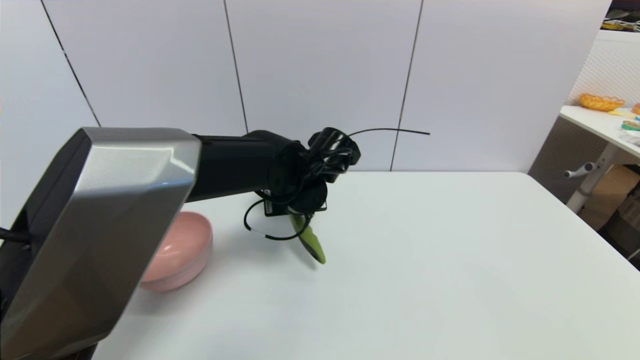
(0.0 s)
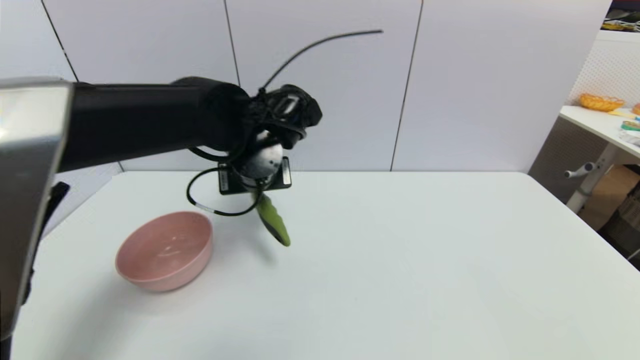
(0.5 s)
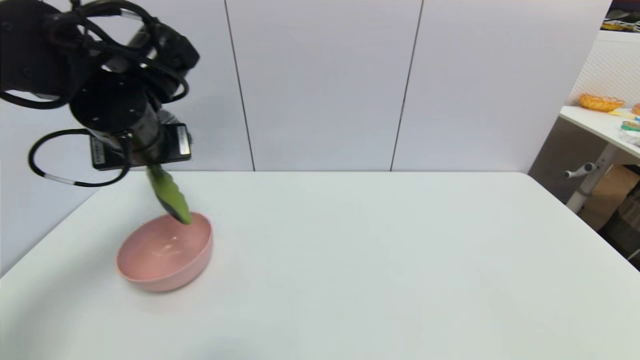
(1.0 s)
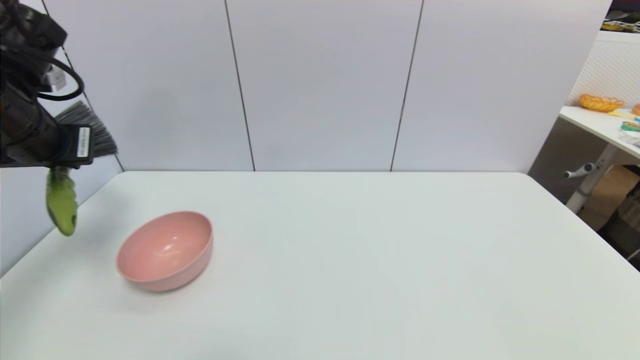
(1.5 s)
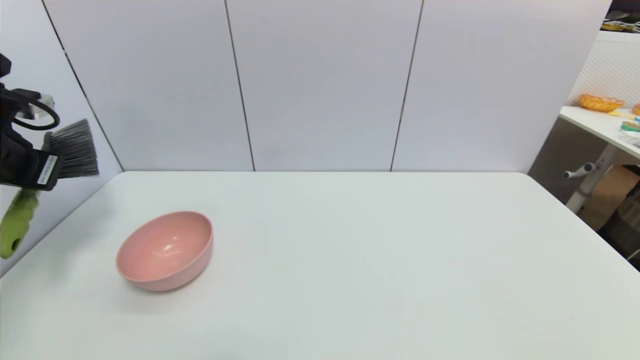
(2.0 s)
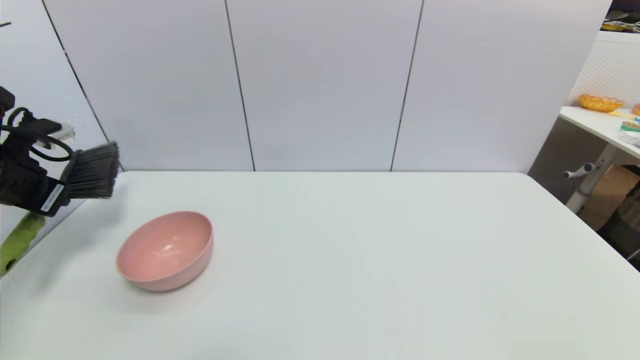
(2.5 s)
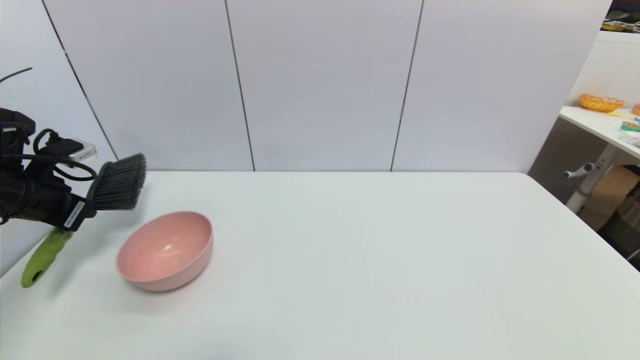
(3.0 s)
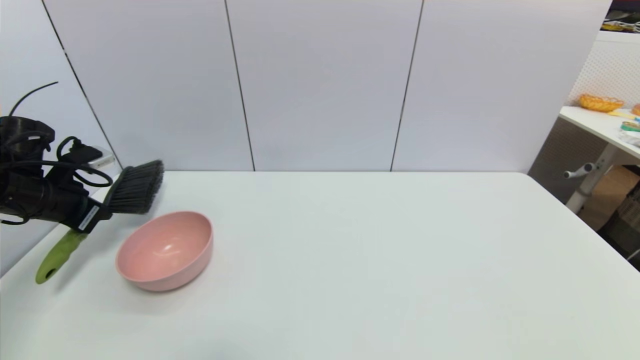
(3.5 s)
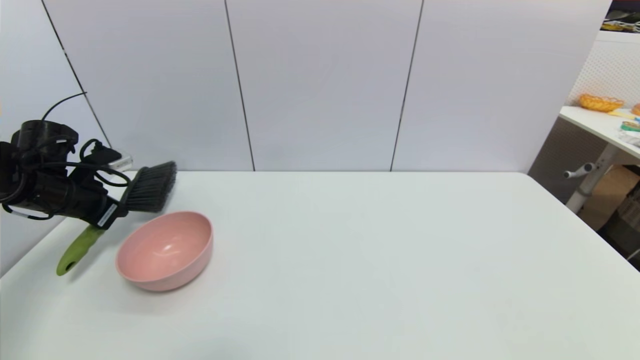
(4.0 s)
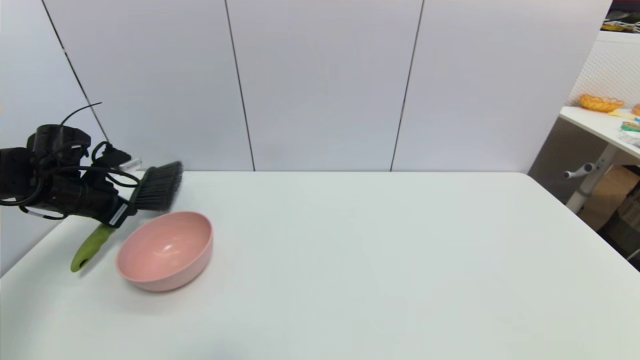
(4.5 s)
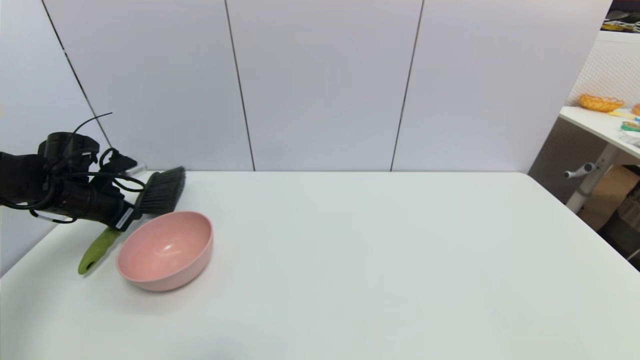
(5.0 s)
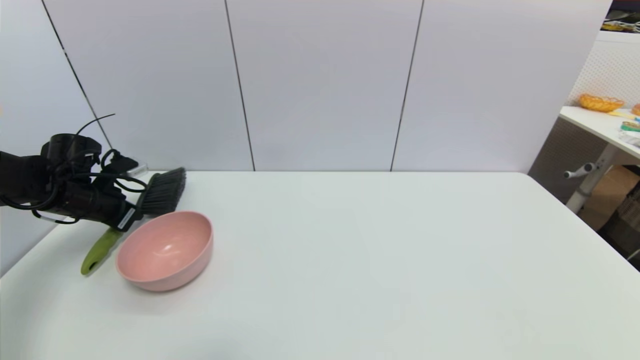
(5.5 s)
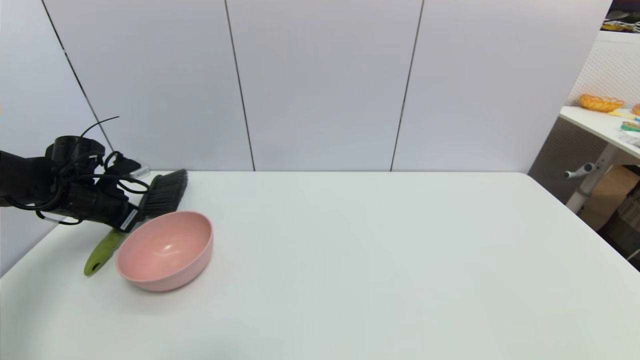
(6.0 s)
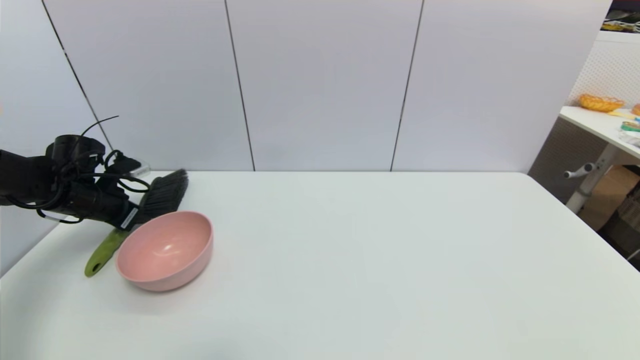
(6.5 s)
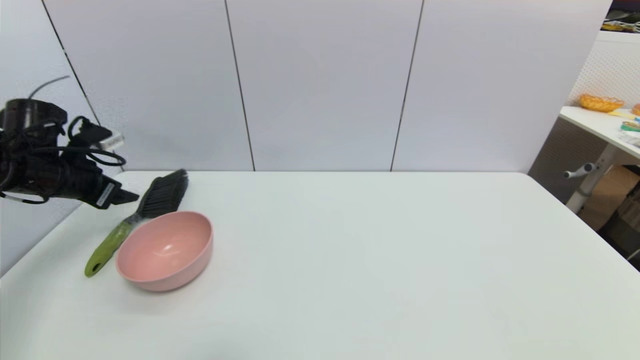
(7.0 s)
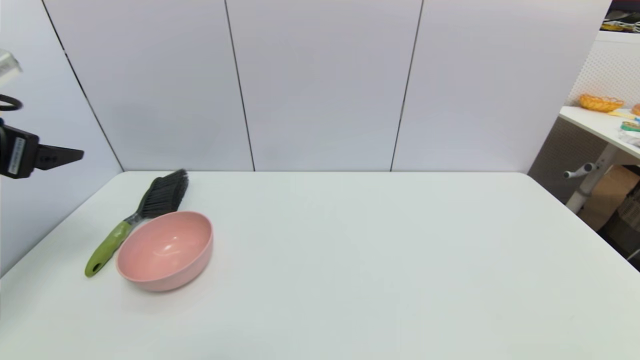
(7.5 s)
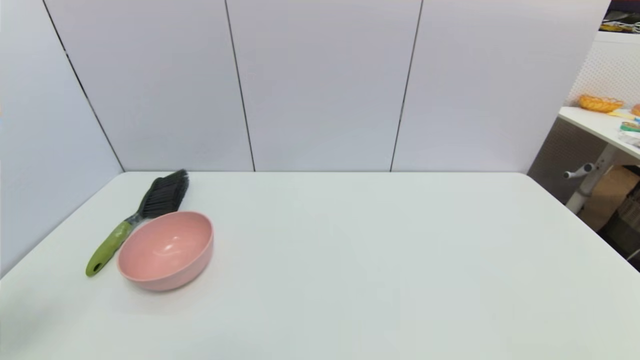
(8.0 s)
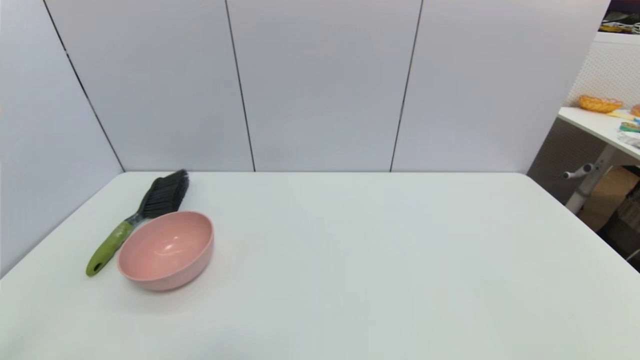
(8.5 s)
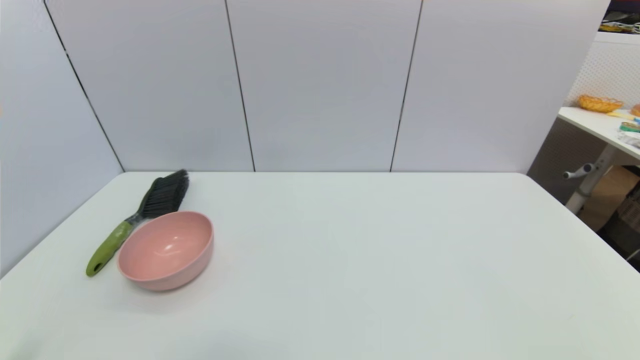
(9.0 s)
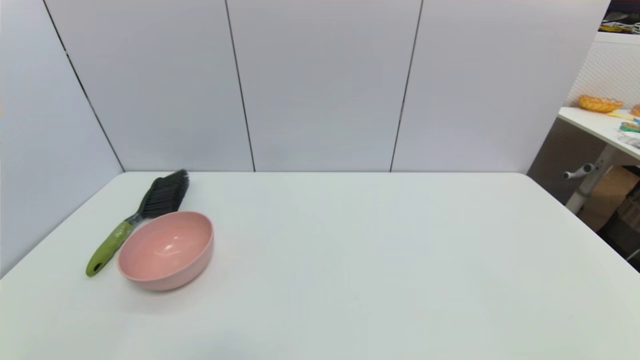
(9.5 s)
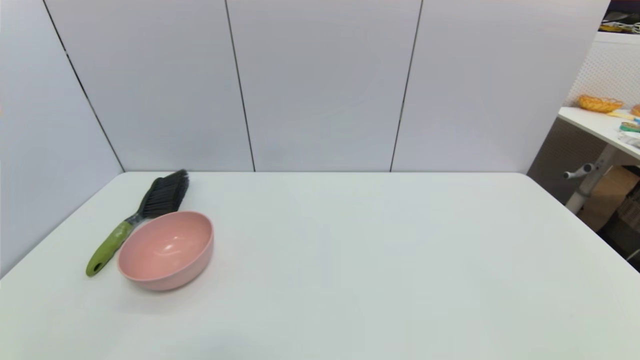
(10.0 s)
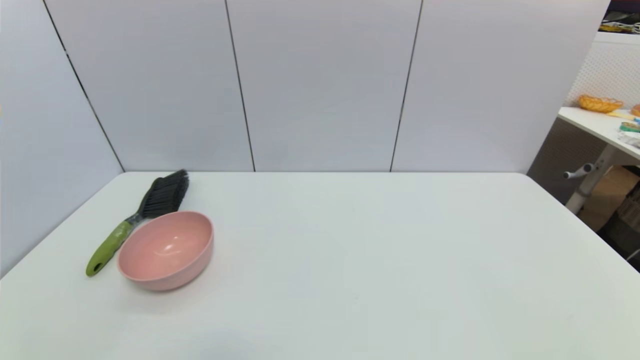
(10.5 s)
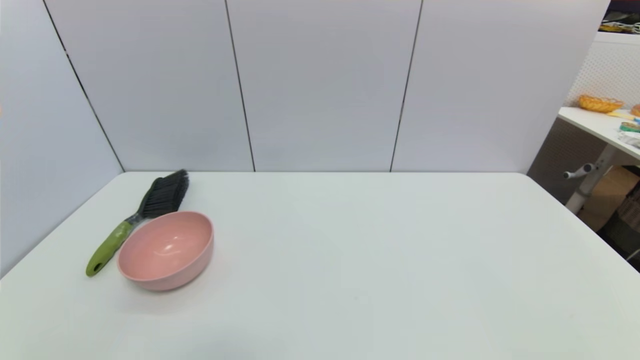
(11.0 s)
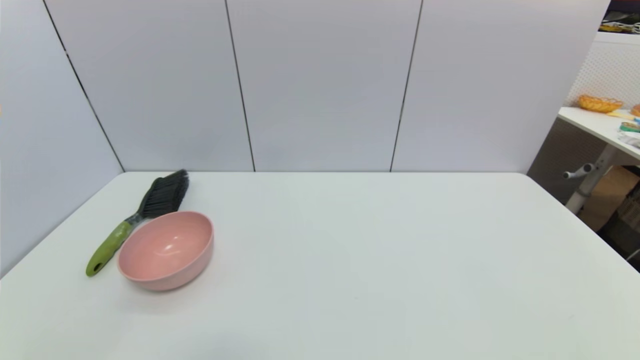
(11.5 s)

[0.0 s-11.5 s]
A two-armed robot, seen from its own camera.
Task of the whole recording: put the brush in the designated position.
Step, 0.5 to 6.5 s: Place the brush on the table with left gripper.
0.0 to 2.0 s: The left gripper travels to the left by roughly 35 cm.
2.0 to 4.0 s: The left gripper is displaced downward and forward by approximately 15 cm.
4.0 to 6.0 s: The grippers make only small movements.
6.0 to 7.5 s: The left gripper goes approximately 25 cm upward and backward, and opens.
7.5 to 9.5 s: The left gripper goes some 30 cm downward and backward.

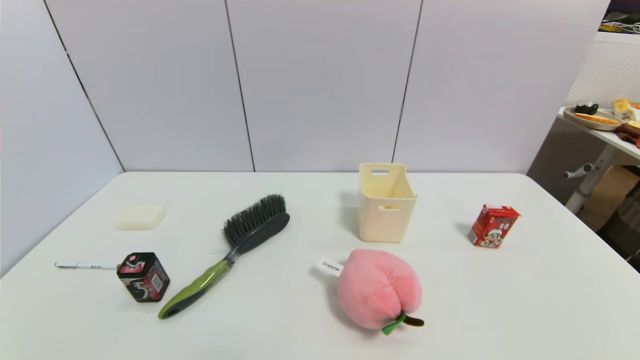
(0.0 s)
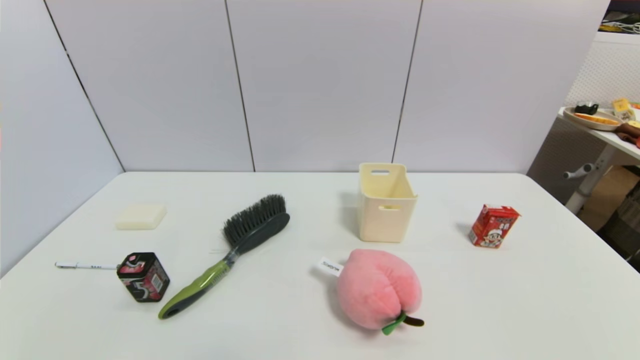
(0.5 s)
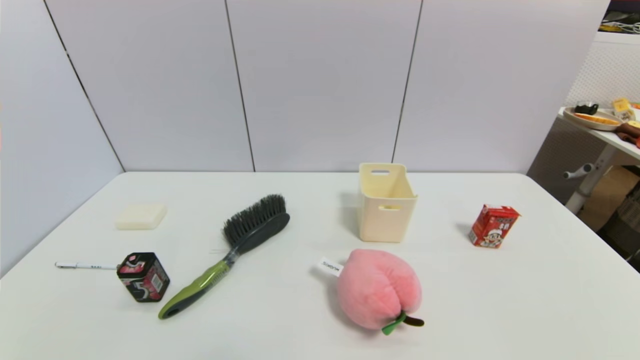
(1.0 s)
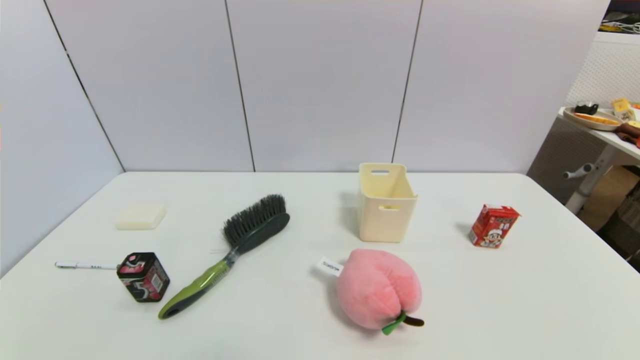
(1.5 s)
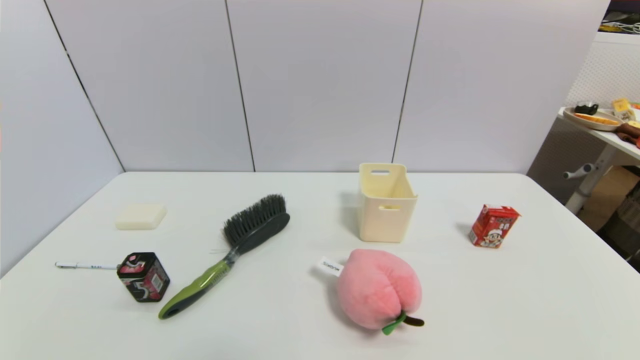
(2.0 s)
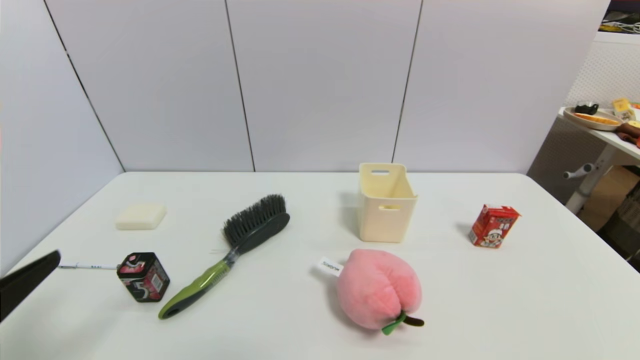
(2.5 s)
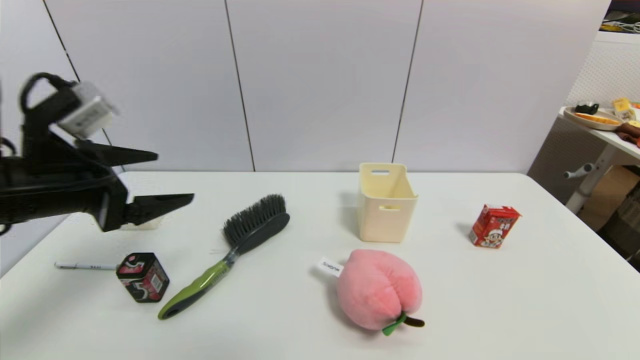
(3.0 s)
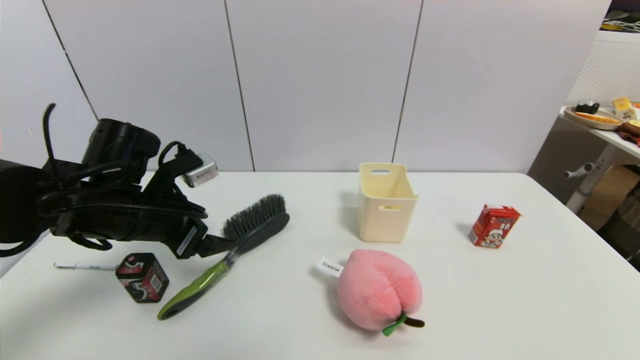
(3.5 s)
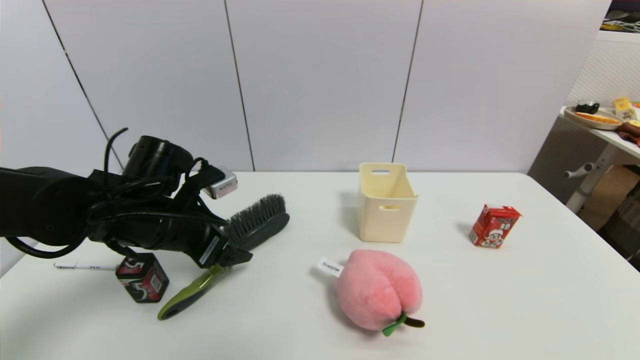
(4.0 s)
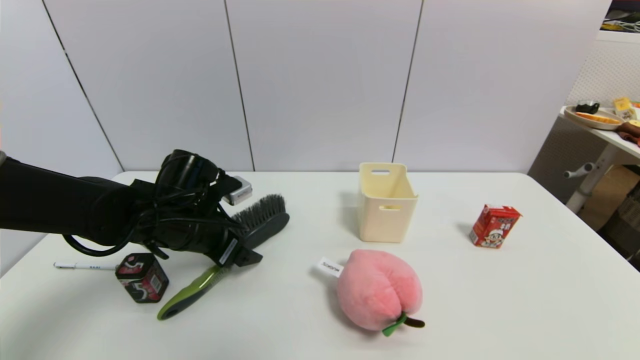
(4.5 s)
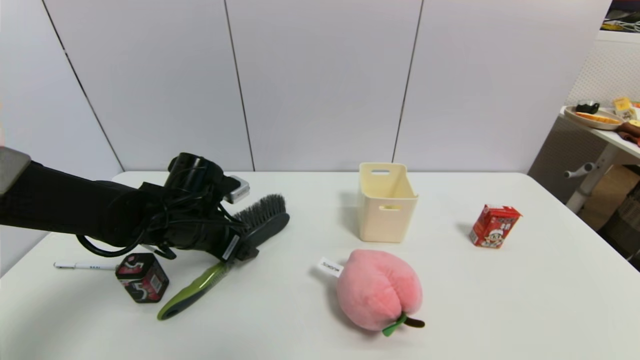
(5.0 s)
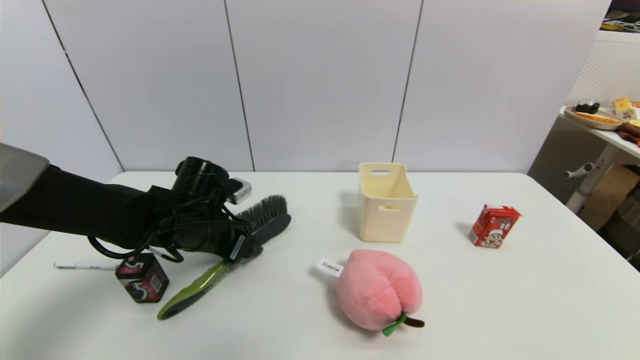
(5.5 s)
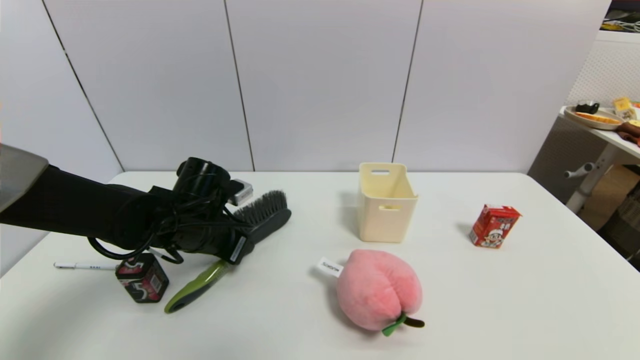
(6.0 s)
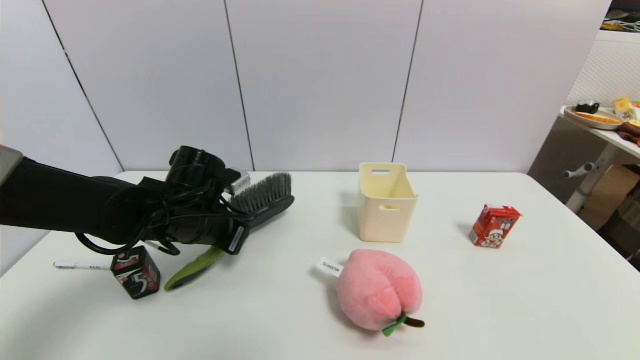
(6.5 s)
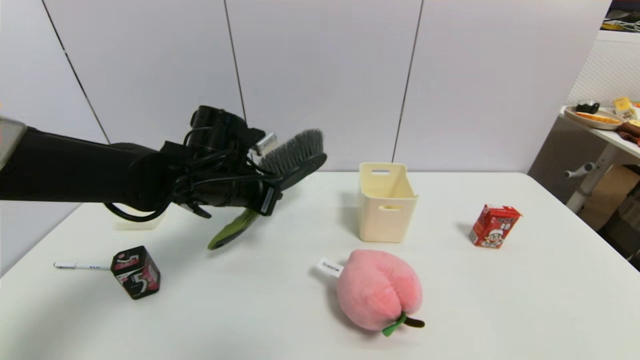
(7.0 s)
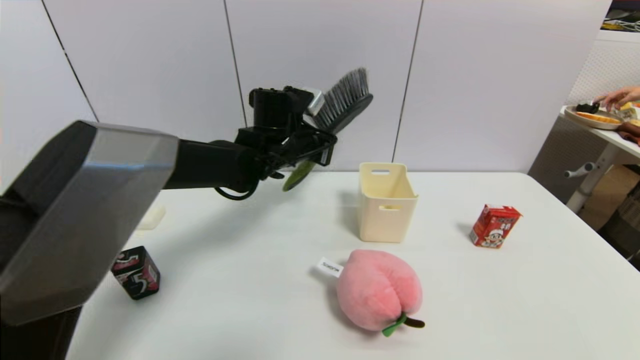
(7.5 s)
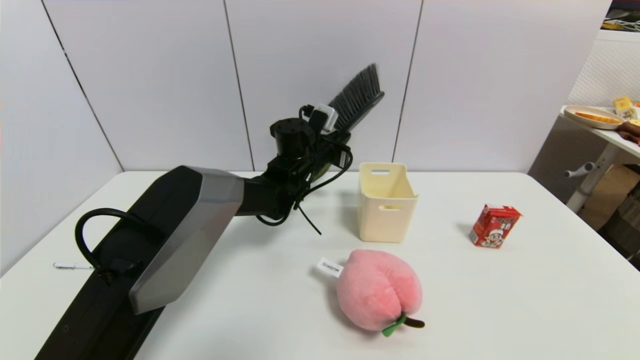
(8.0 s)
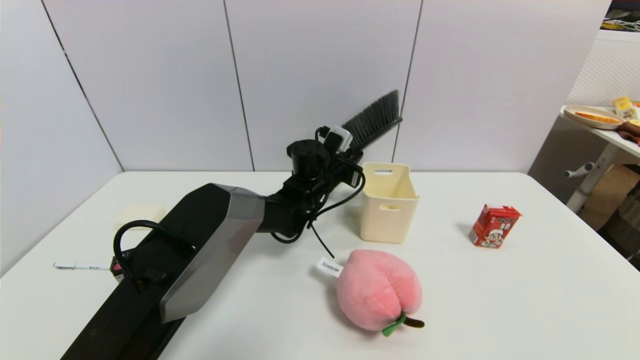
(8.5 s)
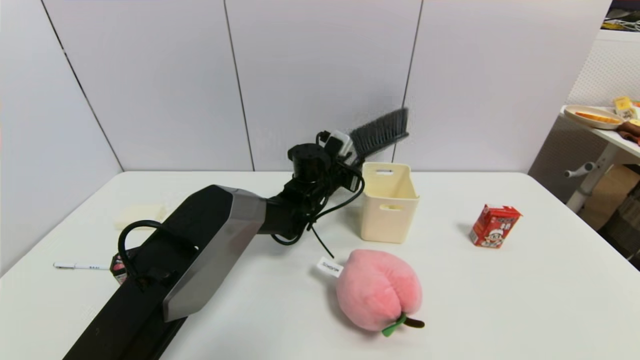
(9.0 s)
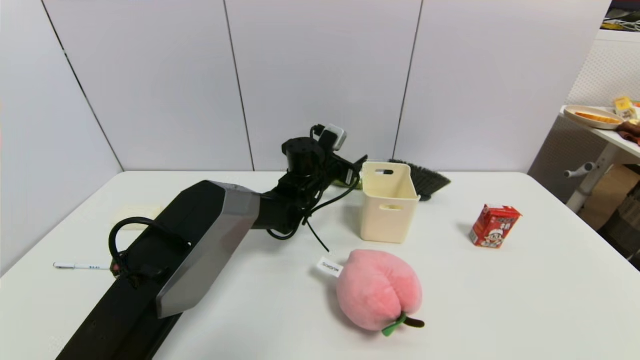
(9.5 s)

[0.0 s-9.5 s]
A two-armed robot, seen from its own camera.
Task of the whole recording: put the brush in the designated position.
Step, 2.5 to 6.0 s: Grasp the brush with left gripper.
Step, 6.5 to 9.0 s: Place the brush on the table with left gripper.
0.0 to 2.0 s: The two grippers keep their place.
2.0 to 4.0 s: The left gripper is displaced forward by some 30 cm.
4.0 to 5.5 s: The left gripper moves roughly 5 cm.
5.5 to 7.5 s: The left gripper heads to the right, forward and upward, covering roughly 20 cm, and closes its fingers.
7.5 to 9.5 s: The left gripper shifts approximately 10 cm downward, and opens.
